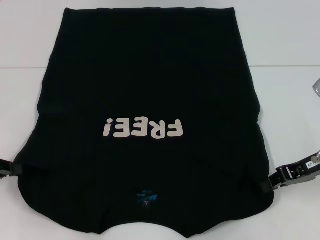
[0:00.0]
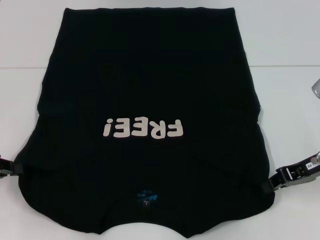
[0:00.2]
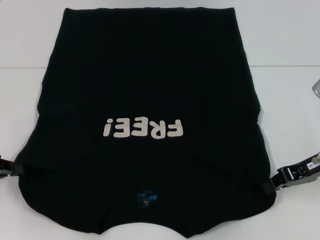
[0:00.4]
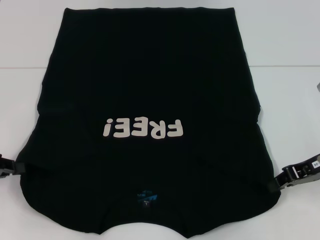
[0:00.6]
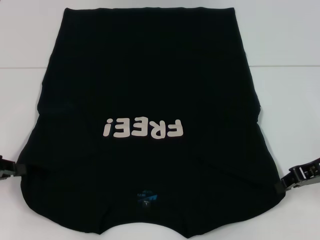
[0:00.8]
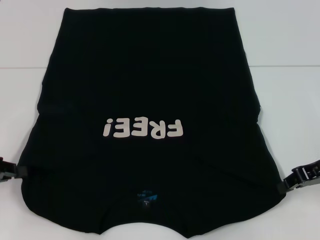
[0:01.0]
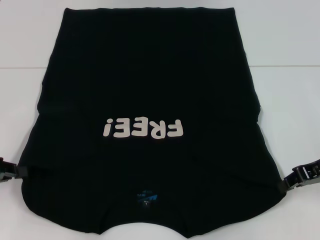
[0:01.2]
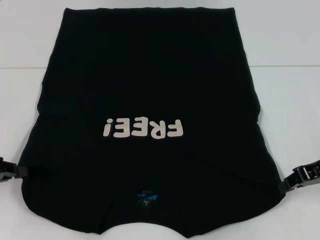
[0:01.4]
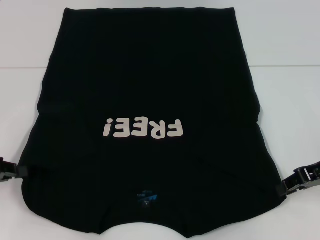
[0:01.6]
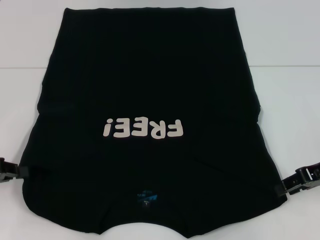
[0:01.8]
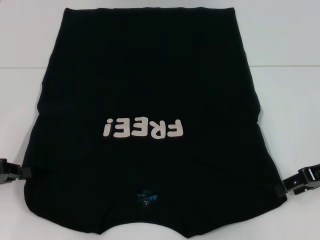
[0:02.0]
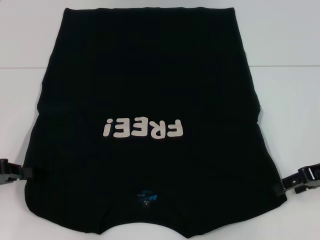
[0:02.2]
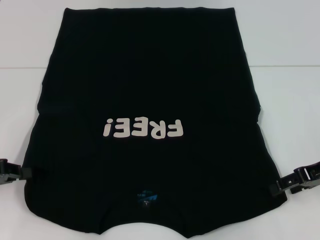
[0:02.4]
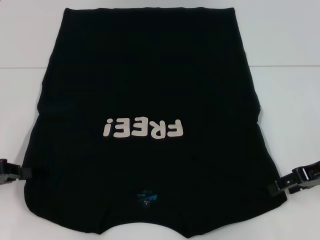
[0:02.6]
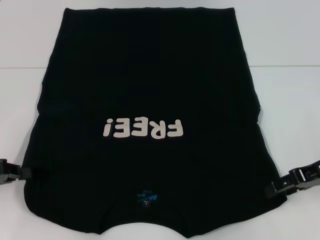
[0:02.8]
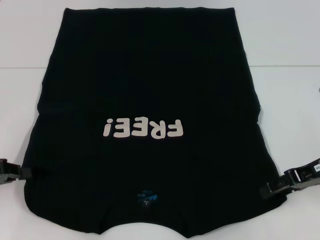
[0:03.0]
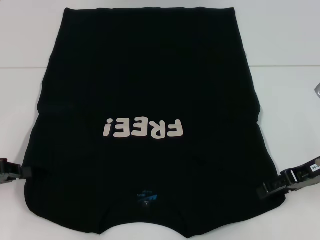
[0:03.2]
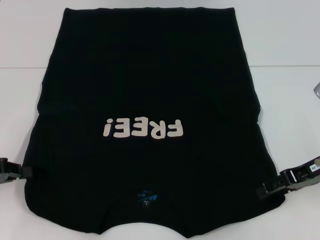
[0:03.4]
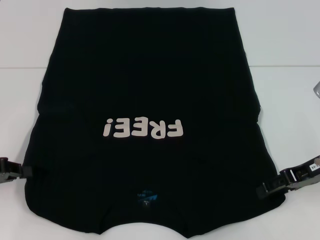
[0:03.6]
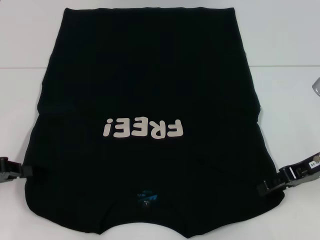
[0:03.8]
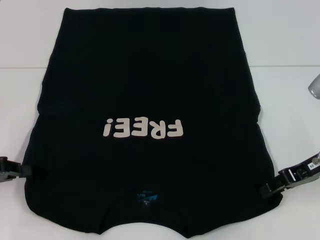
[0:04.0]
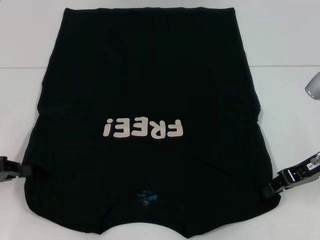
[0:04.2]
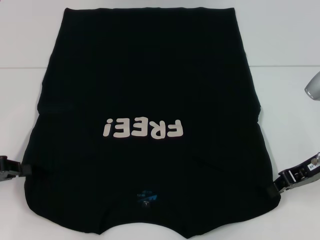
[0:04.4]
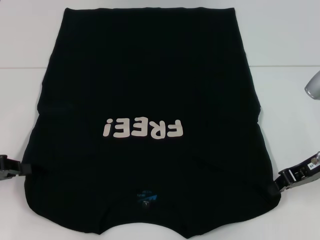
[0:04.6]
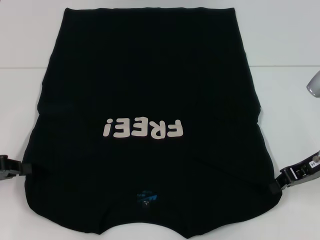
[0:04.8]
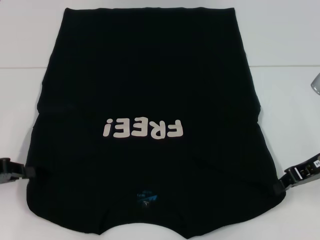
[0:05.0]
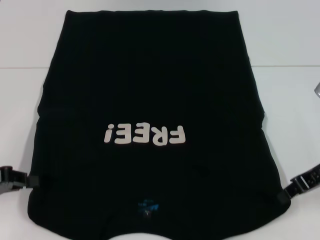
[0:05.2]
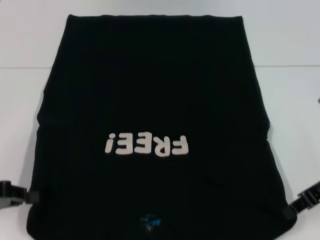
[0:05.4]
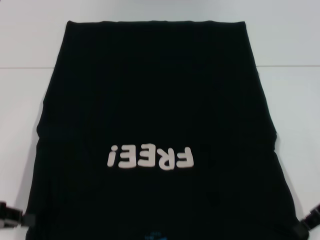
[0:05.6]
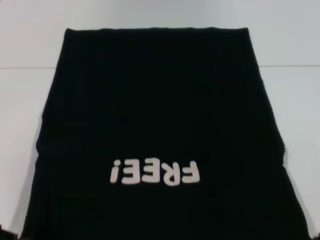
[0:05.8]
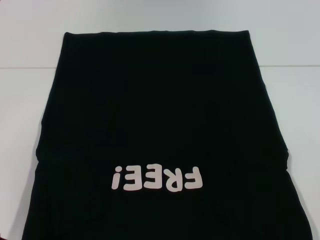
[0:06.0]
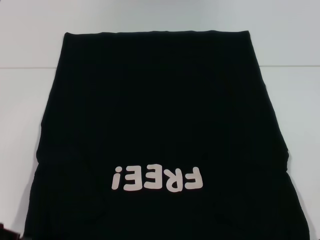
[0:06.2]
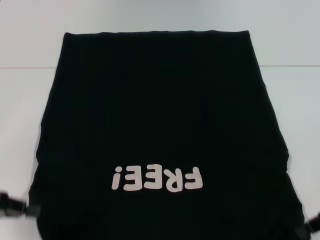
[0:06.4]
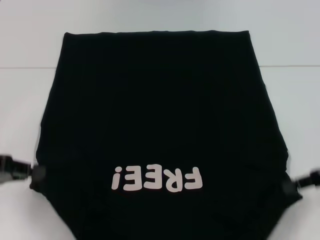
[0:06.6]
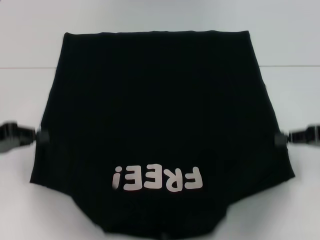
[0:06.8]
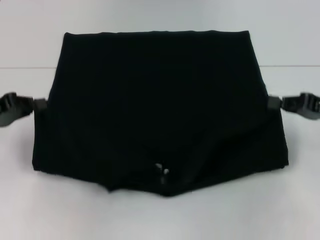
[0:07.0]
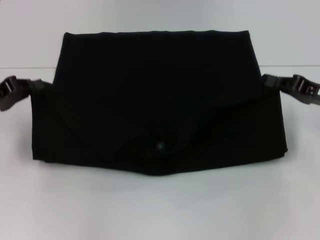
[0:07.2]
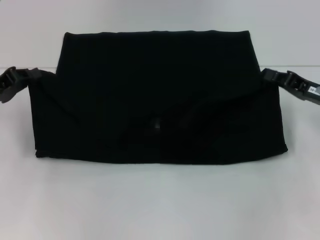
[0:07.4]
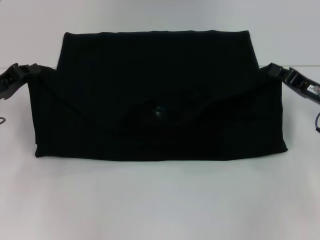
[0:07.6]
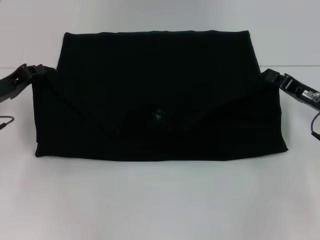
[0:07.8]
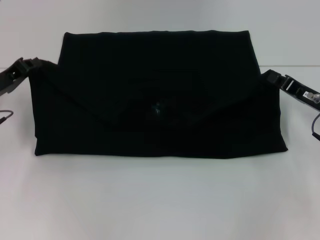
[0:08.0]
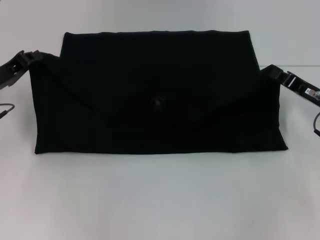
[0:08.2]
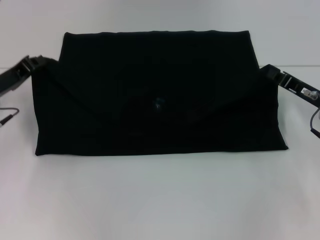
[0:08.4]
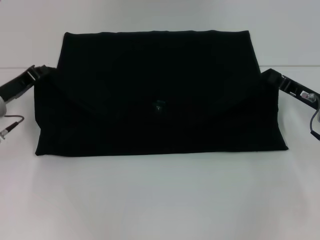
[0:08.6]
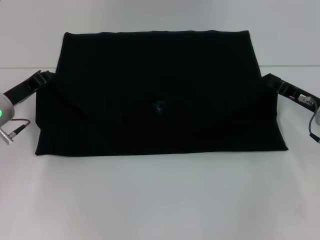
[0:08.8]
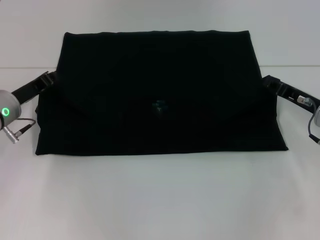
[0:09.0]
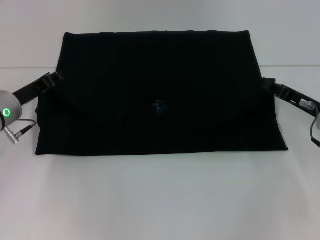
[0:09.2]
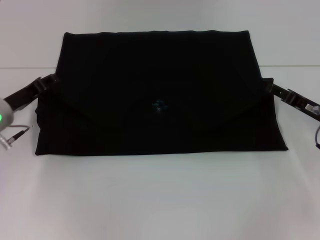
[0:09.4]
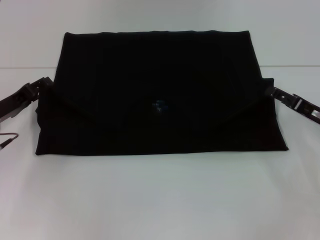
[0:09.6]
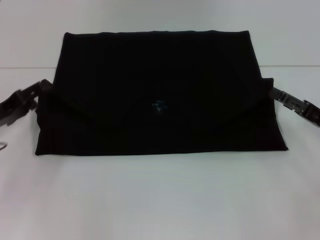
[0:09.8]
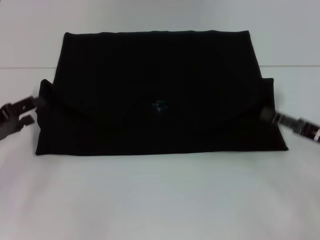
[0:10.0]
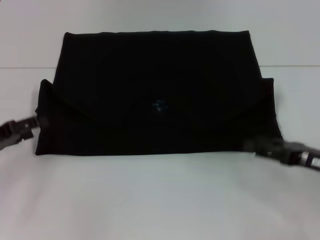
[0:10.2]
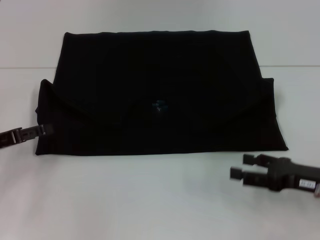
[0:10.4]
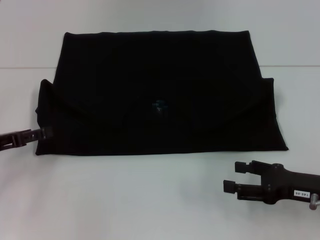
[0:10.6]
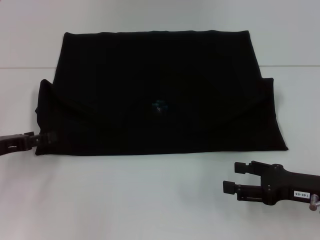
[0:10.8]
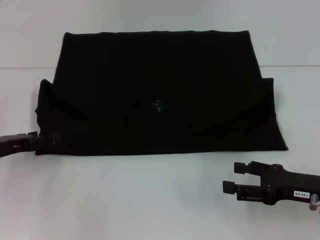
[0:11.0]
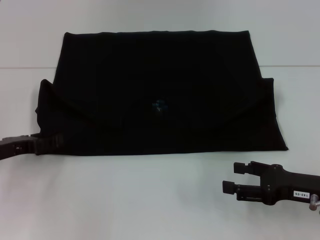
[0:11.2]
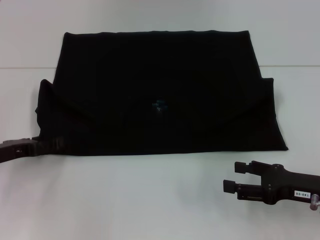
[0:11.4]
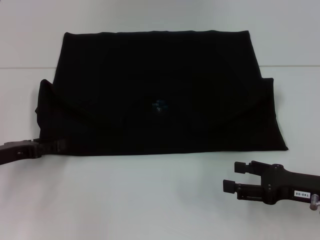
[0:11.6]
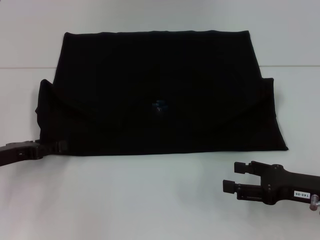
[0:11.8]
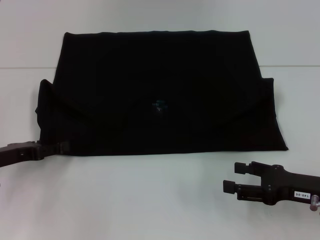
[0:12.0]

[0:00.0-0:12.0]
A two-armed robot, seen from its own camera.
Step, 0.8 to 9.6 s: Fold the clothes with your left hand.
Step, 0.8 to 9.6 s: Fold the clothes with your right hand.
0.0 to 1.6 s: The grippers make only small movements.
1.6 to 3.0 s: The right gripper opens.
3.0 to 4.4 s: The right gripper closes.
4.4 to 6.0 s: The left gripper ends up roughly 5 cm from where it was. The right gripper shifts by approximately 5 cm.
6.0 to 7.6 s: The left gripper heads forward, covering approximately 15 cm; the right gripper heads forward, covering approximately 5 cm.
7.6 to 9.0 s: The left gripper shifts by about 5 cm.
9.0 to 10.4 s: The right gripper is displaced backward by roughly 10 cm, and opens up, while the left gripper travels backward and to the left by approximately 10 cm, and opens.
10.4 to 12.0 s: The grippers make only small movements.

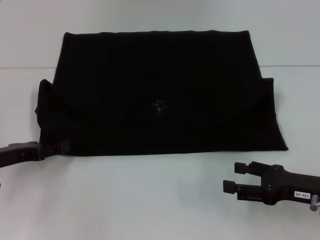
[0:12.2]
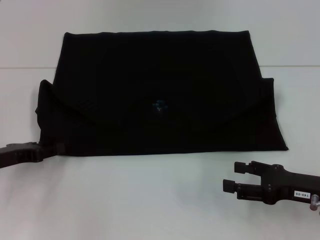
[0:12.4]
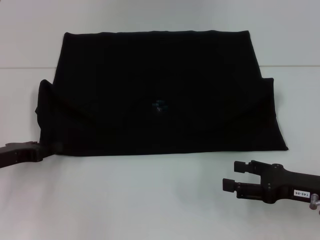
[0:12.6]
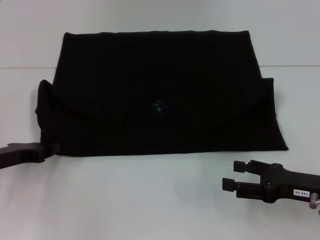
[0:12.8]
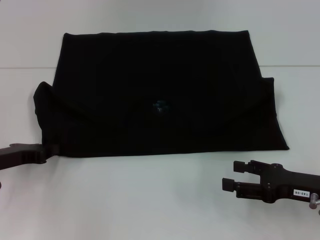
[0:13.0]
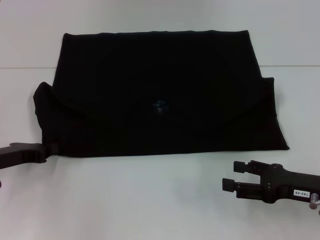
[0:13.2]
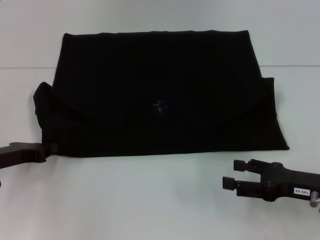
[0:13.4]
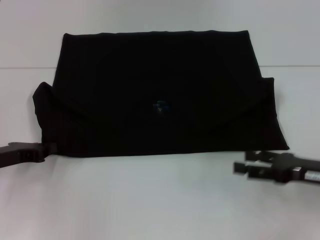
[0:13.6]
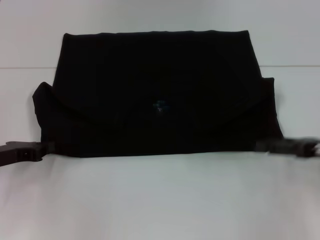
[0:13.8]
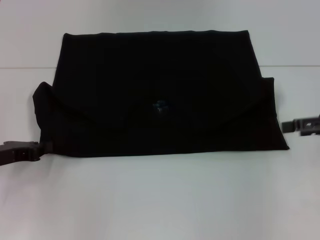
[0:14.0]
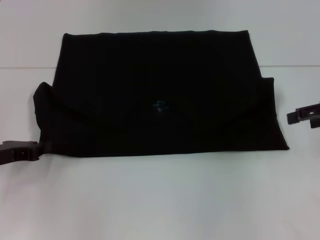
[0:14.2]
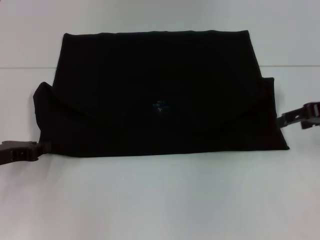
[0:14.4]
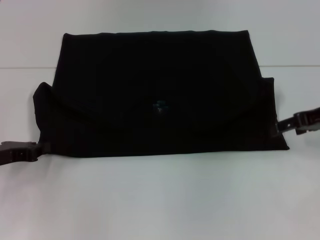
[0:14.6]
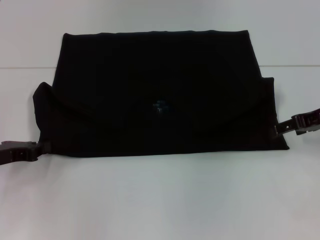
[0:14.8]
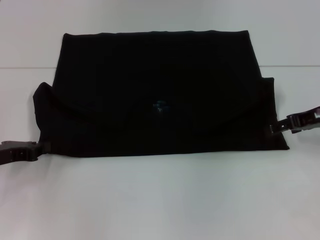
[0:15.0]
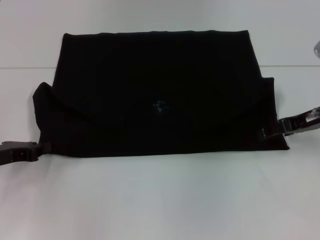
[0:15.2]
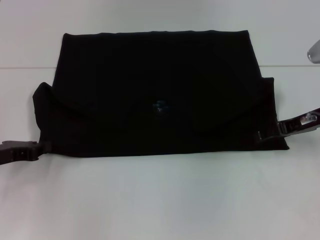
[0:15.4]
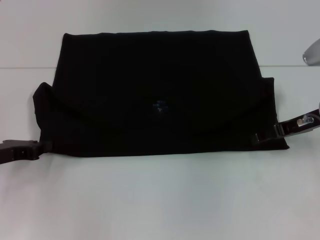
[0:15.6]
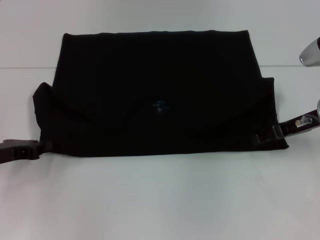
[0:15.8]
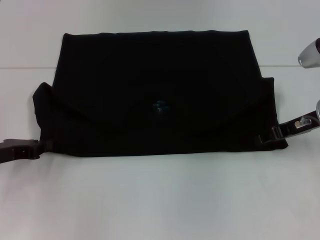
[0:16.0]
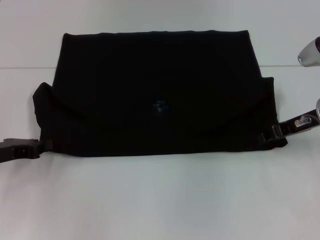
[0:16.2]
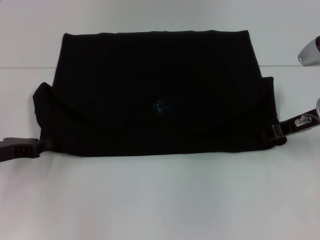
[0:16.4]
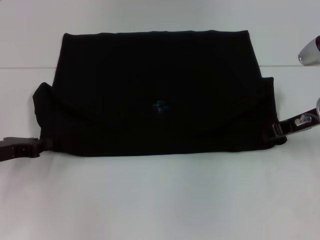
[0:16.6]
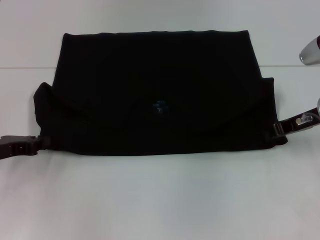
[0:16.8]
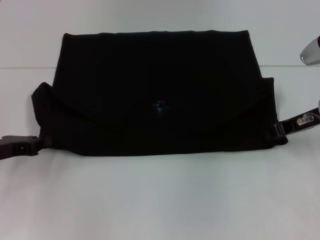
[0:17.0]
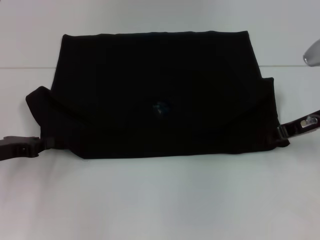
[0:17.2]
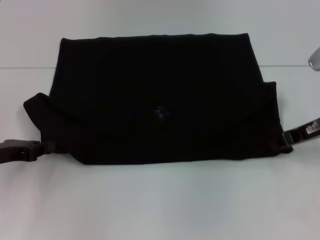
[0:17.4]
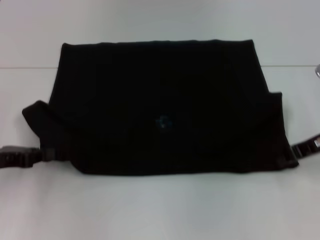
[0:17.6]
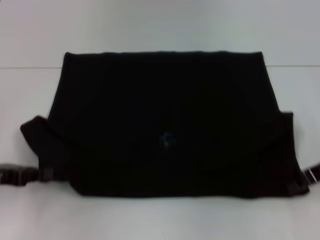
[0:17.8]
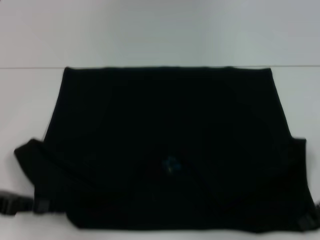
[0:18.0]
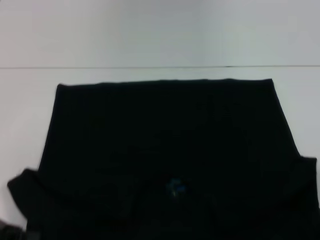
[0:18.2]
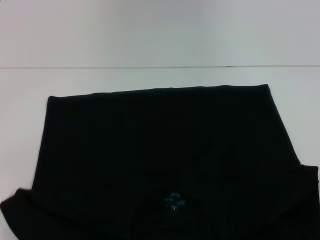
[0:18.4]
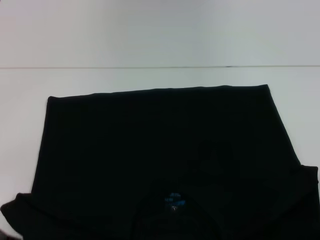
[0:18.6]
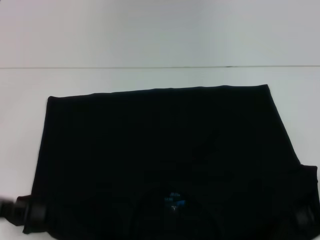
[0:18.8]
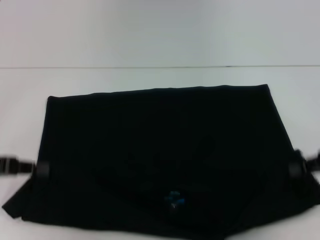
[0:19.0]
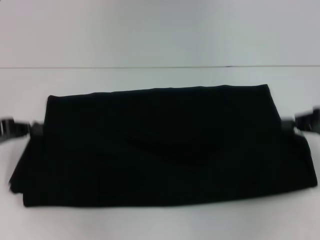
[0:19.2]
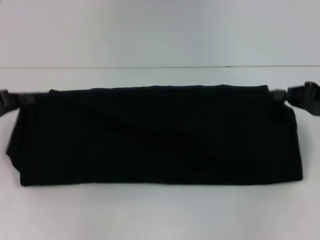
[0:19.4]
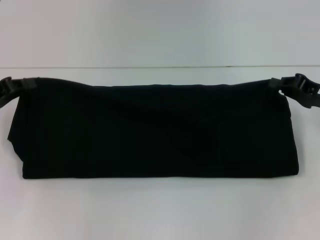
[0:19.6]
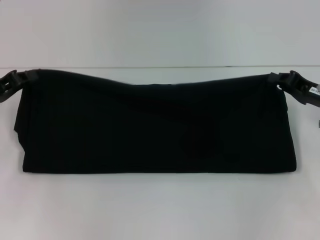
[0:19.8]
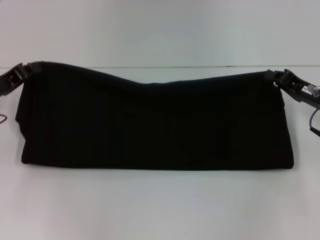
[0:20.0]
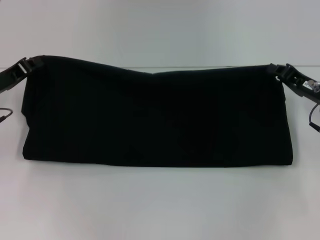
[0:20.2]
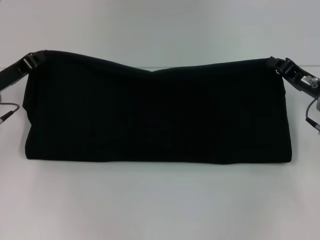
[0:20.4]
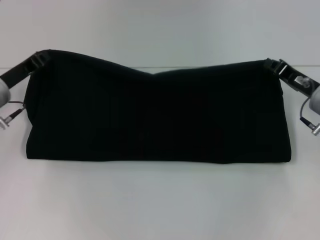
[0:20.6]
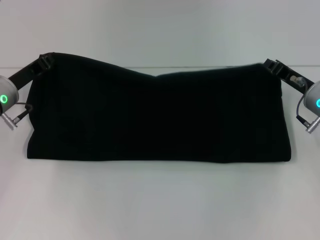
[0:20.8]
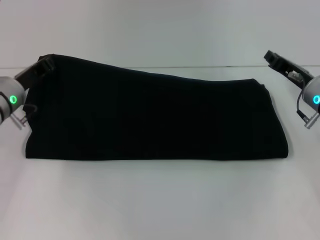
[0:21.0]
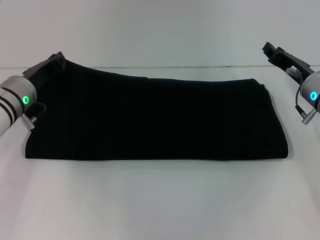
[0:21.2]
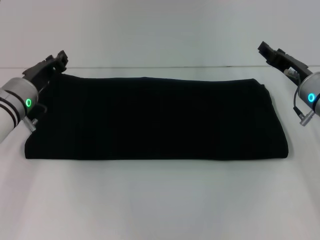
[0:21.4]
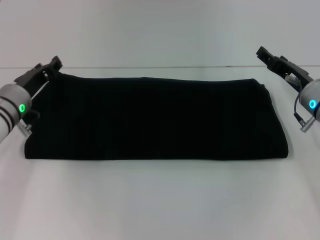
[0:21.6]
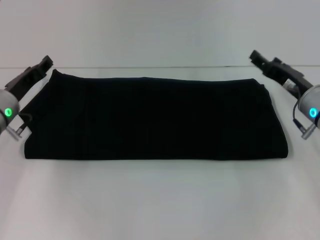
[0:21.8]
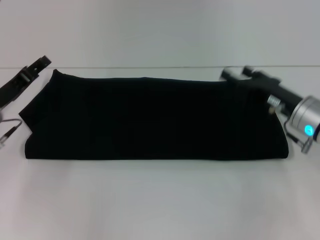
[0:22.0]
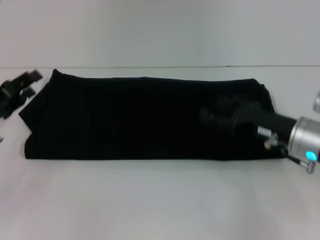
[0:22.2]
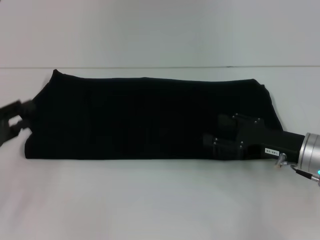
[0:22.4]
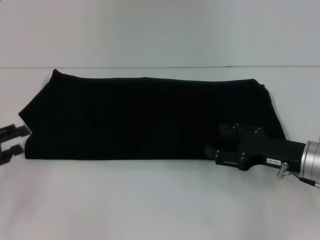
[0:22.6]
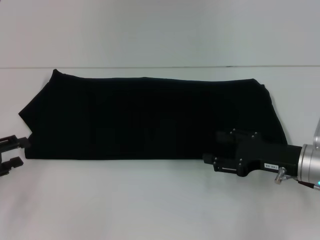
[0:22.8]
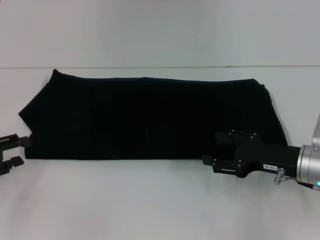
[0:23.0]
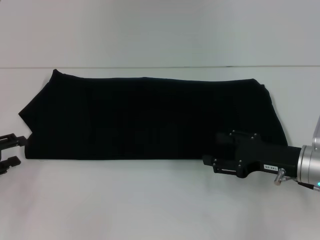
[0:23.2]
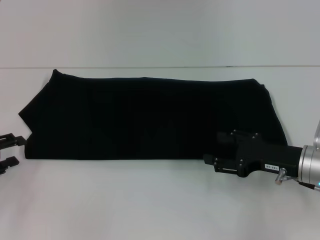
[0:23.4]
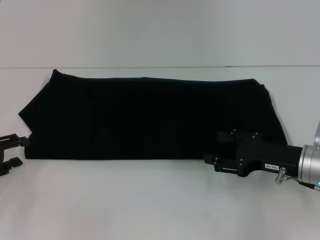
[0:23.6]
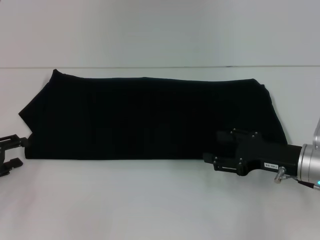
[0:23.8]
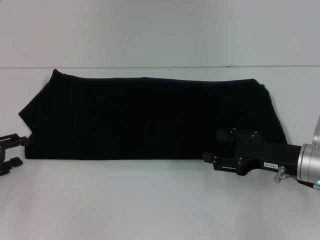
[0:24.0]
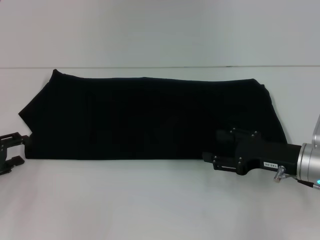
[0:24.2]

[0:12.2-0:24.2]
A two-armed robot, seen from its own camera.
Step, 12.2 to 18.4 s: Pull the clothes with your left hand.
Step, 12.2 to 18.4 s: Pull the clothes with your right hand.
Step, 18.6 to 21.4 s: Fold the clothes with your right hand.
12.2 to 13.8 s: The left gripper closes. Meanwhile the right gripper goes about 5 cm upward.
13.8 to 15.2 s: The right gripper travels forward by about 10 cm.
15.2 to 16.6 s: The right gripper closes up.
16.6 to 18.2 s: The left gripper shifts roughly 10 cm backward. The right gripper heads backward and to the right, covering some 10 cm.
18.2 to 19.8 s: Both grippers move forward, some 10 cm.
19.8 to 21.2 s: The left gripper moves to the right and forward, about 10 cm, while the right gripper shifts by about 5 cm.
21.2 to 22.6 s: The left gripper heads backward and to the left, covering about 20 cm, and opens up. Meanwhile the right gripper moves backward, roughly 10 cm, and opens up.
22.6 to 24.2 s: The grippers make only small movements.
